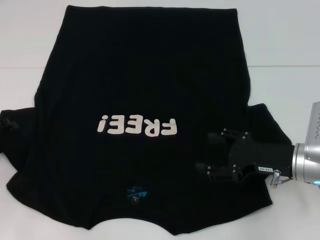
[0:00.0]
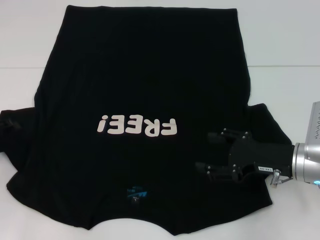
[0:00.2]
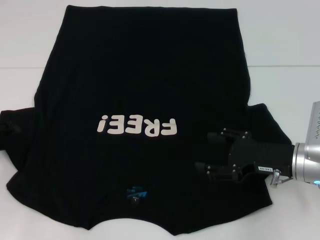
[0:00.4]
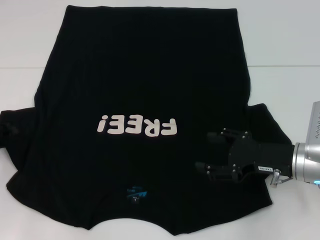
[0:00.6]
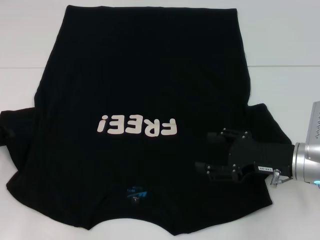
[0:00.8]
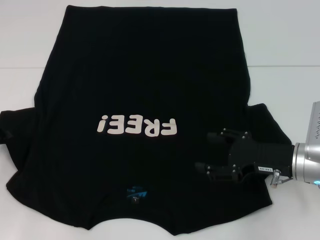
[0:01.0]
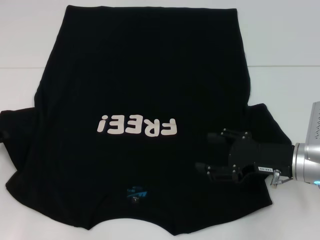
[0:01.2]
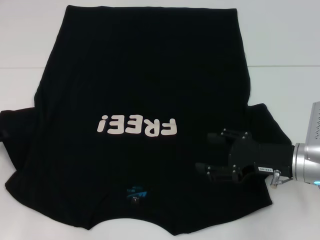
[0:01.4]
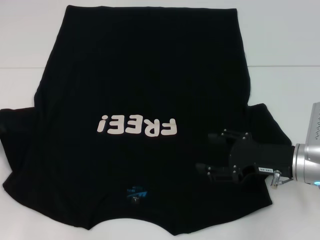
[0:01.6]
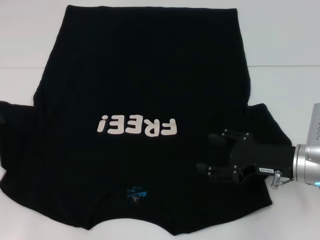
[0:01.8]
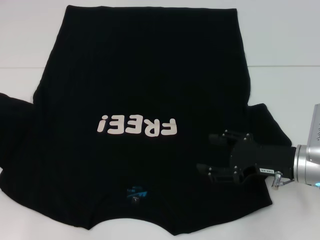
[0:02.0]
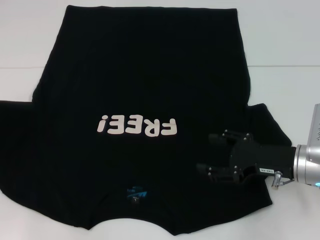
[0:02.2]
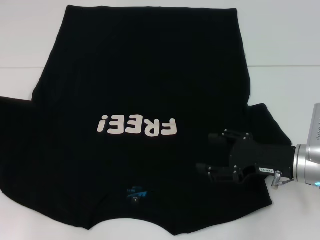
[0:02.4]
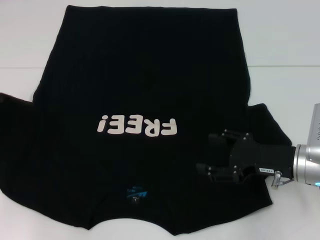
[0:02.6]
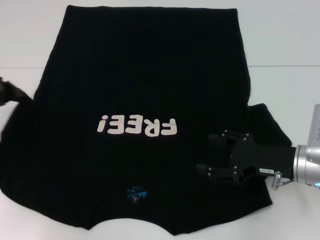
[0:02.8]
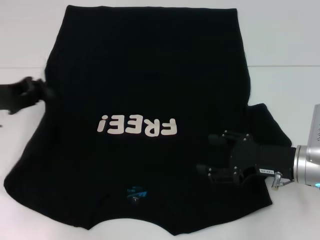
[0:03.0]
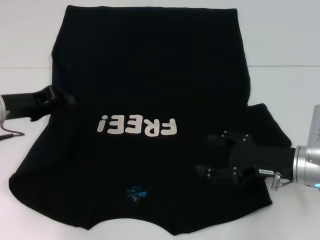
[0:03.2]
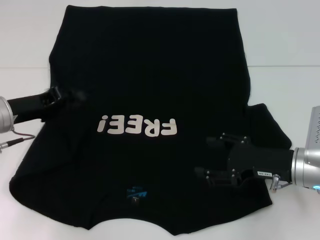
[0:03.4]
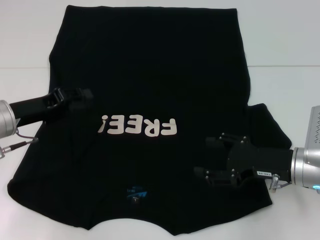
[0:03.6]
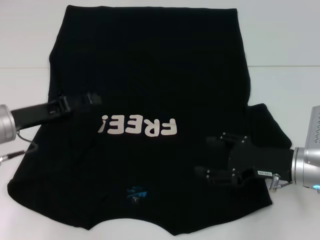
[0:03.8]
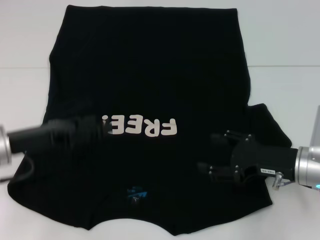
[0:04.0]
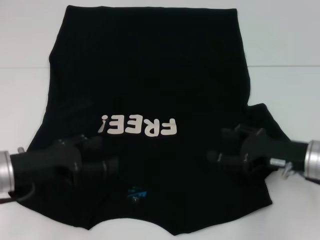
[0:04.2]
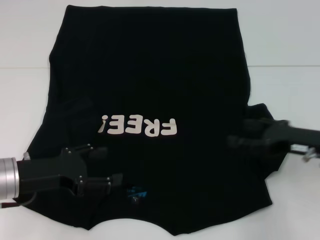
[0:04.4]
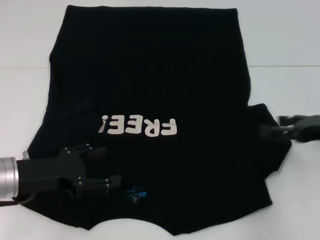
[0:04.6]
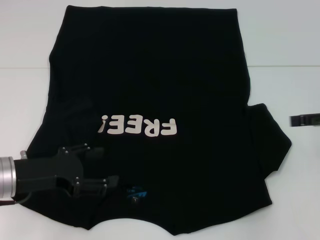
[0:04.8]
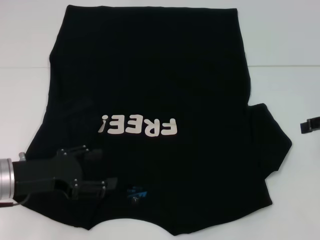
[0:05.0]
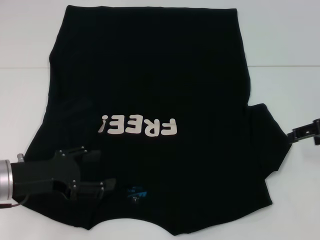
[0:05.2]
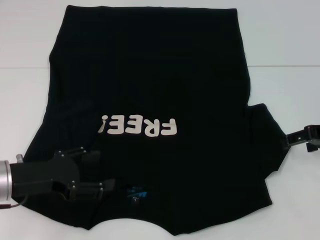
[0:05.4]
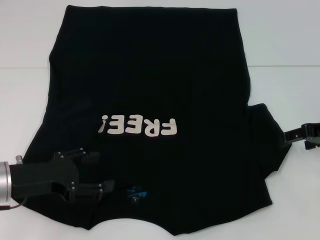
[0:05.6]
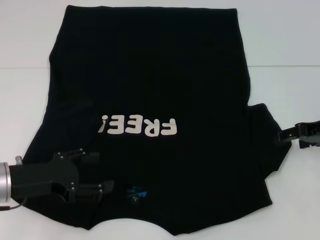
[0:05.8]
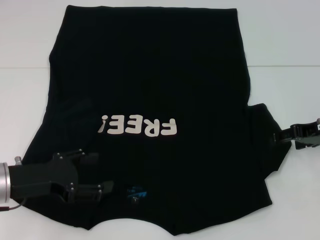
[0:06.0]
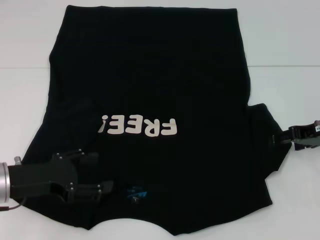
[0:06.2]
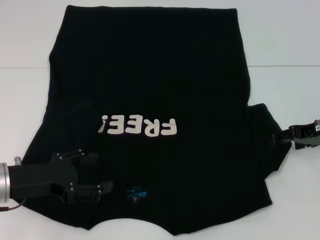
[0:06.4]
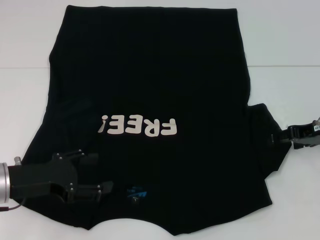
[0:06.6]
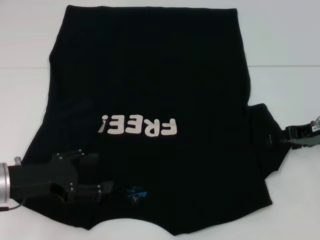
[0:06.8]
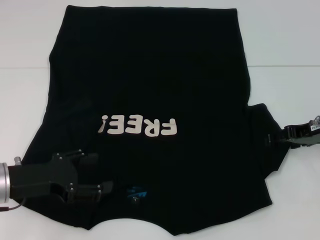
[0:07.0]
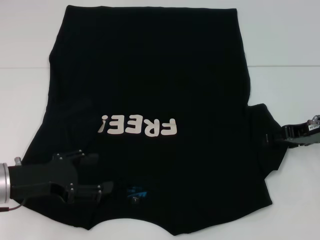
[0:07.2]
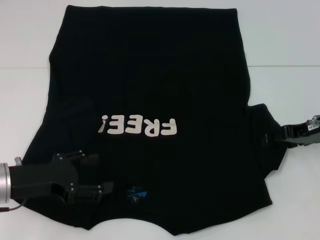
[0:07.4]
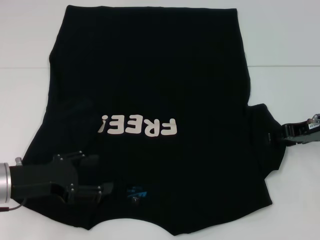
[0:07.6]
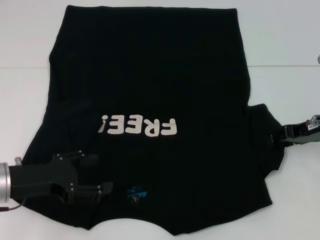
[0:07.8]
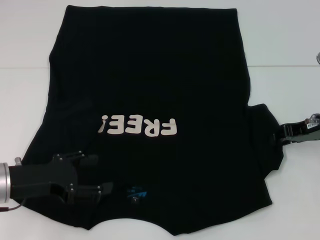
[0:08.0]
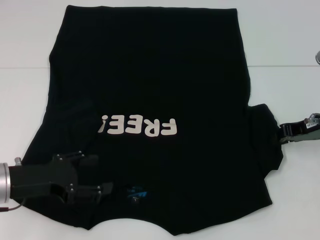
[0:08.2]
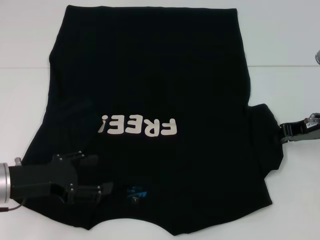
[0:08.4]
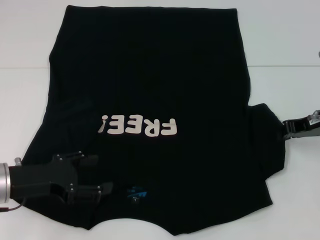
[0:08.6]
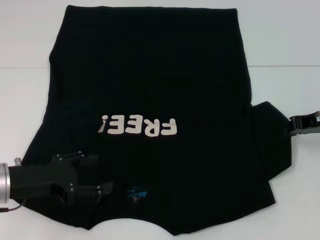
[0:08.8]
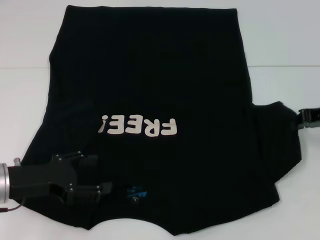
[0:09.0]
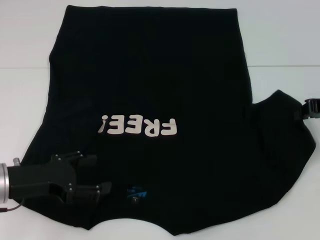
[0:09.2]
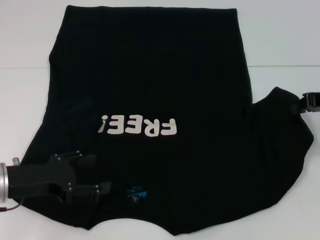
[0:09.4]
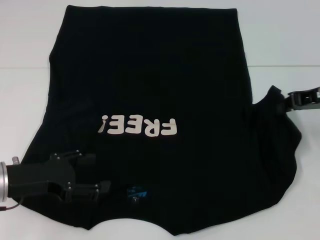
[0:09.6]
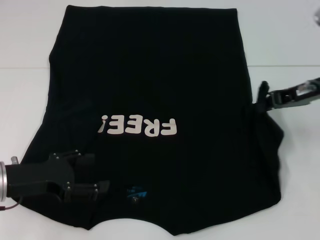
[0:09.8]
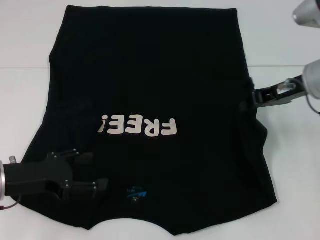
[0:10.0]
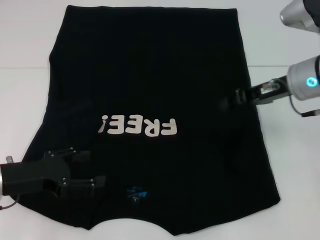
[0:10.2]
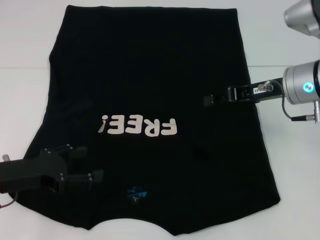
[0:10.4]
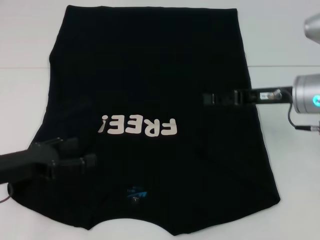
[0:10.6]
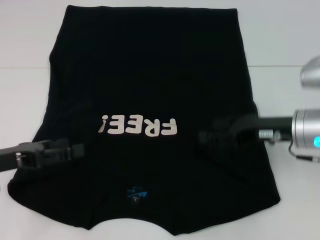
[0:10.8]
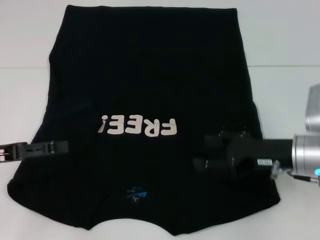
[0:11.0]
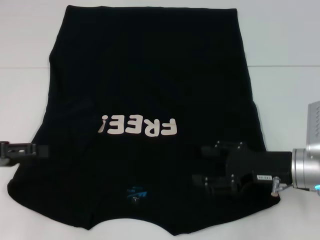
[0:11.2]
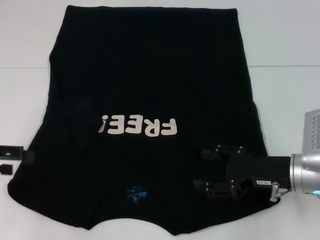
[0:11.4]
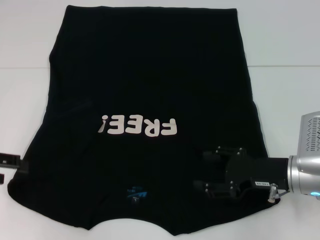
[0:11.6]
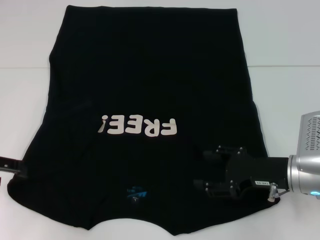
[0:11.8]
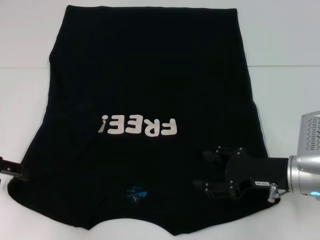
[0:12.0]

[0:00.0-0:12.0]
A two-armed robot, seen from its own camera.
Step, 0:00.0 to 0:03.8: Fold the bottom left sleeve with your left hand.
Step, 0:04.0 to 0:10.6: Fold the bottom right sleeve with your right hand.
0:00.0 to 0:01.6: The left gripper closes.
0:01.6 to 0:03.0: The left gripper travels to the right and upward by about 10 cm.
0:03.0 to 0:04.4: The left gripper is displaced backward, downward and to the right by some 10 cm, and opens.
0:04.4 to 0:06.0: The right gripper shifts about 5 cm forward.
0:06.0 to 0:07.6: There are only small adjustments of the grippers.
0:07.6 to 0:09.0: The right gripper closes up.
0:09.0 to 0:10.4: The right gripper heads to the left, covering roughly 10 cm.
0:10.4 to 0:12.0: The left gripper is displaced to the left and upward by roughly 10 cm, while the right gripper shifts approximately 15 cm downward and backward, and opens up.

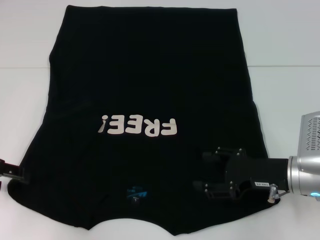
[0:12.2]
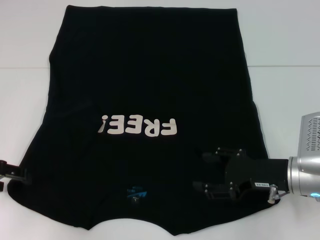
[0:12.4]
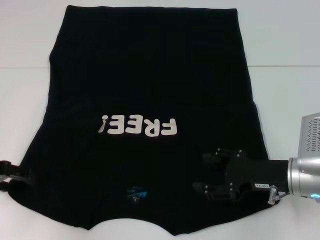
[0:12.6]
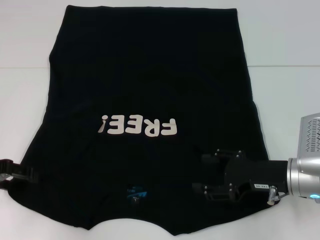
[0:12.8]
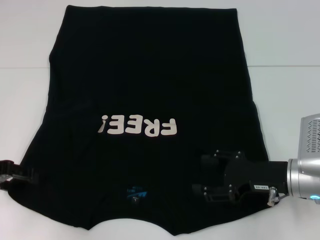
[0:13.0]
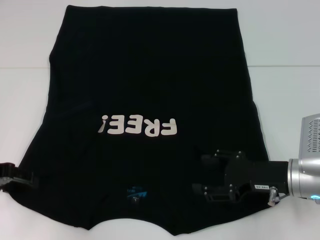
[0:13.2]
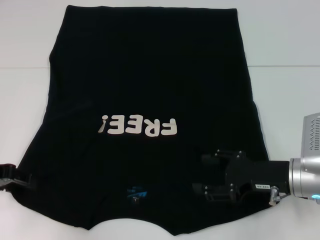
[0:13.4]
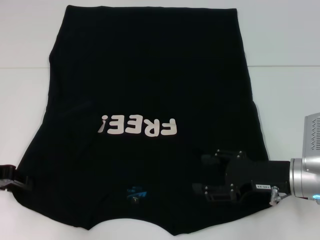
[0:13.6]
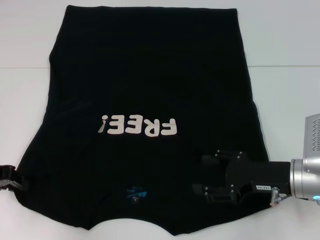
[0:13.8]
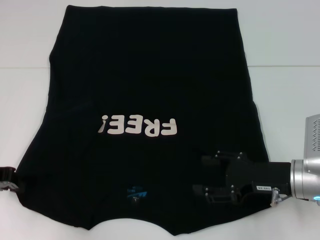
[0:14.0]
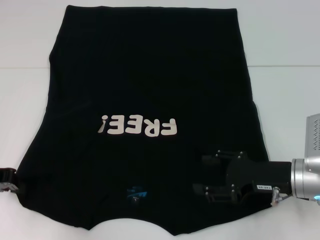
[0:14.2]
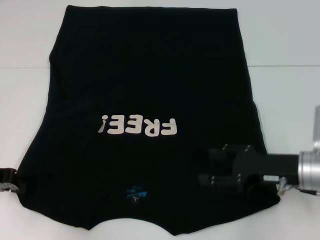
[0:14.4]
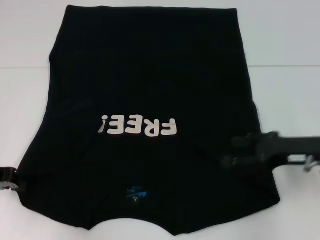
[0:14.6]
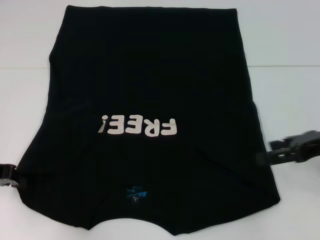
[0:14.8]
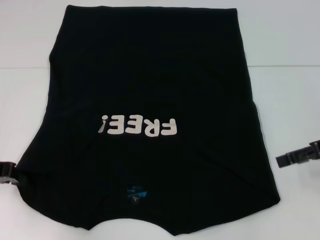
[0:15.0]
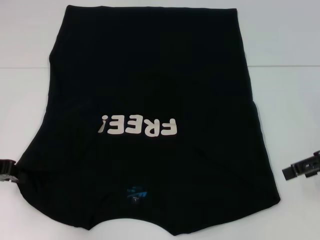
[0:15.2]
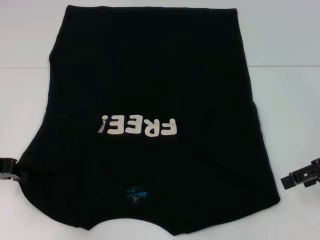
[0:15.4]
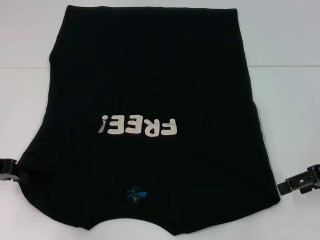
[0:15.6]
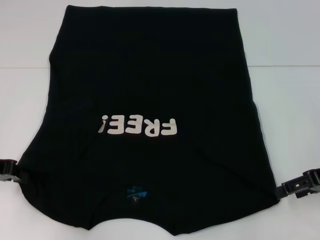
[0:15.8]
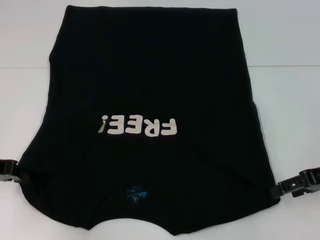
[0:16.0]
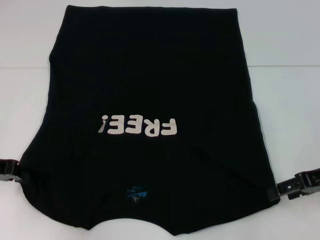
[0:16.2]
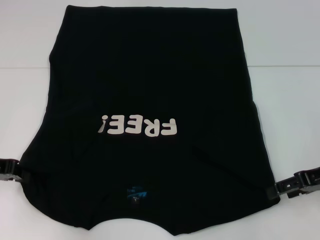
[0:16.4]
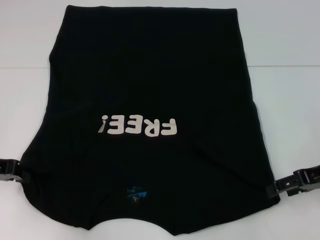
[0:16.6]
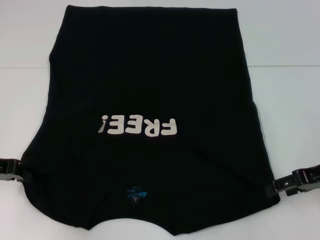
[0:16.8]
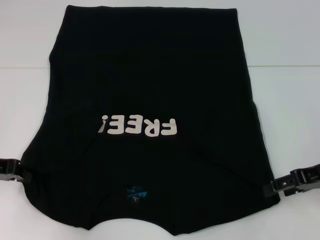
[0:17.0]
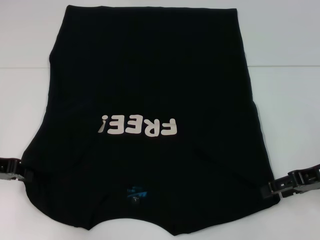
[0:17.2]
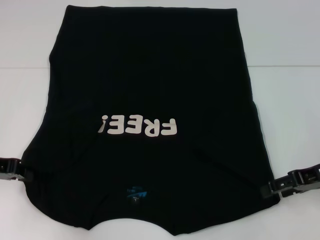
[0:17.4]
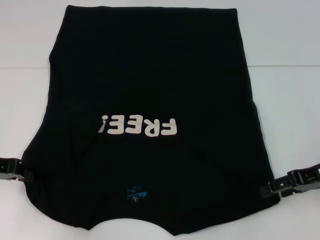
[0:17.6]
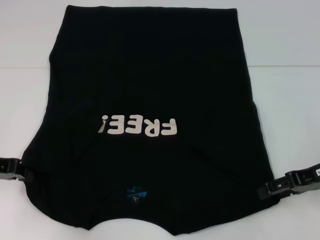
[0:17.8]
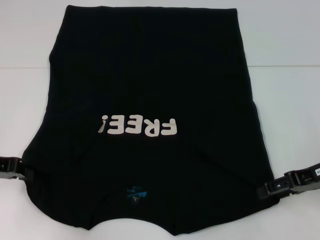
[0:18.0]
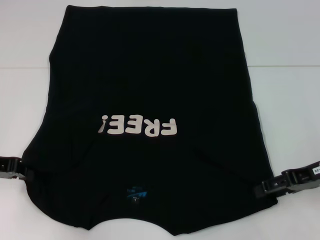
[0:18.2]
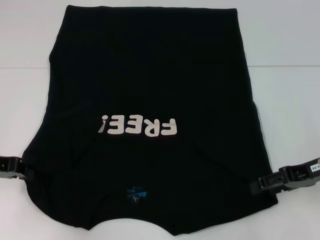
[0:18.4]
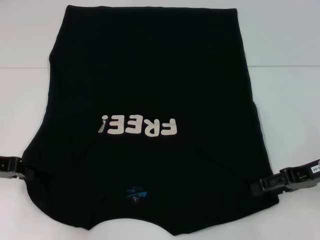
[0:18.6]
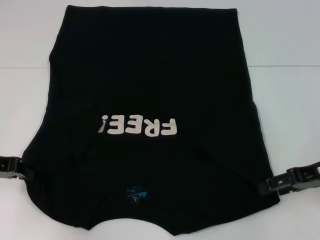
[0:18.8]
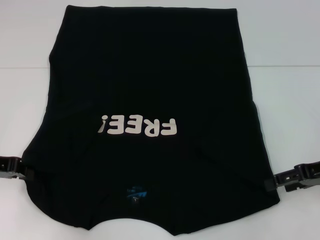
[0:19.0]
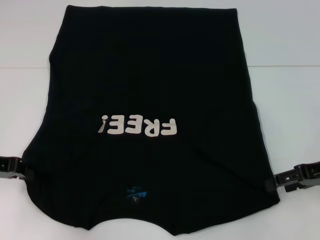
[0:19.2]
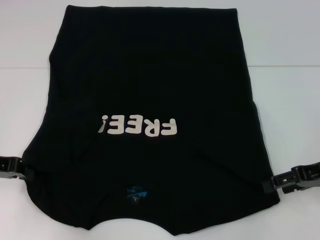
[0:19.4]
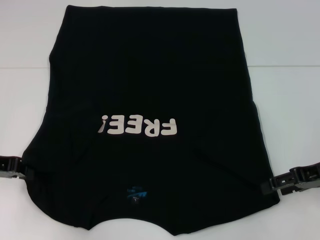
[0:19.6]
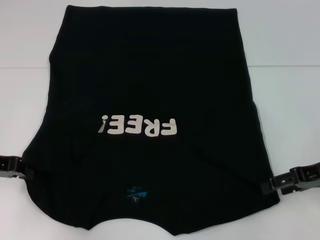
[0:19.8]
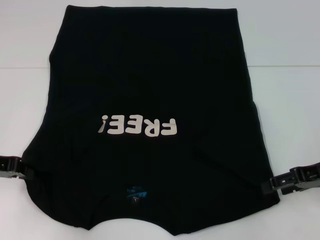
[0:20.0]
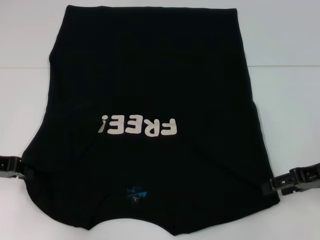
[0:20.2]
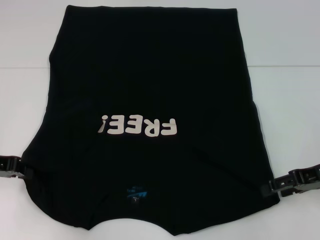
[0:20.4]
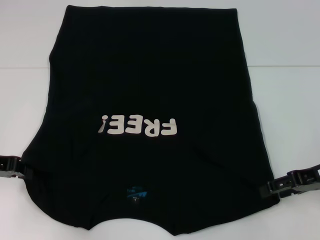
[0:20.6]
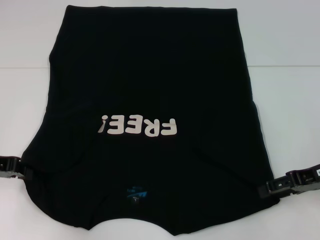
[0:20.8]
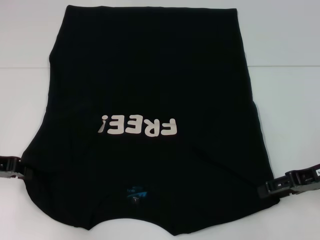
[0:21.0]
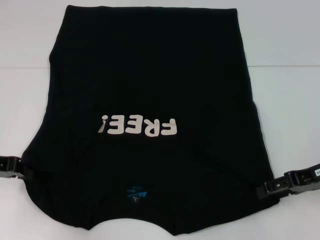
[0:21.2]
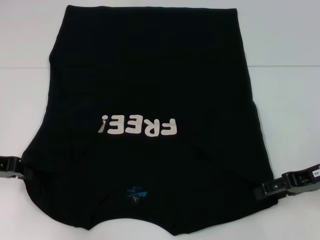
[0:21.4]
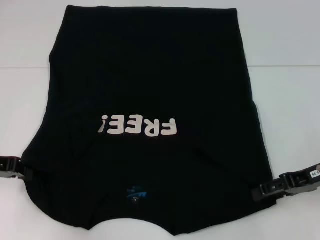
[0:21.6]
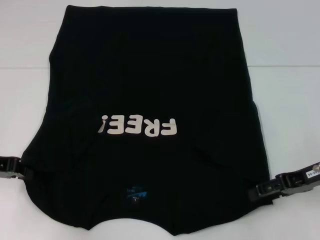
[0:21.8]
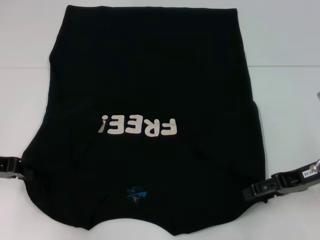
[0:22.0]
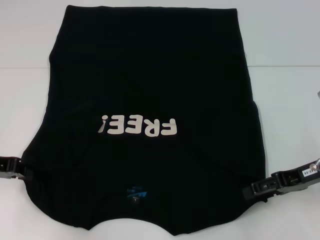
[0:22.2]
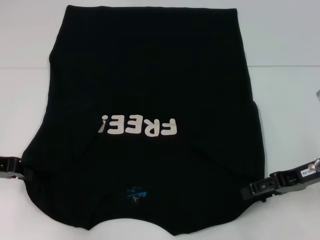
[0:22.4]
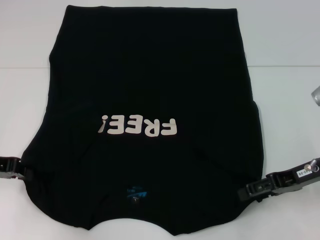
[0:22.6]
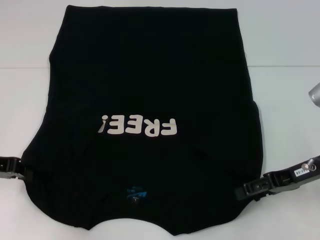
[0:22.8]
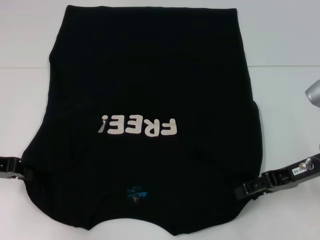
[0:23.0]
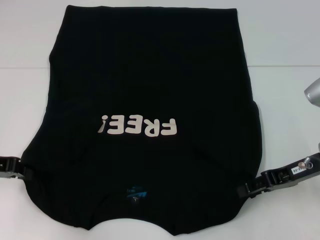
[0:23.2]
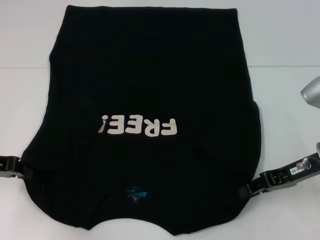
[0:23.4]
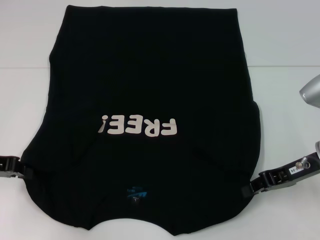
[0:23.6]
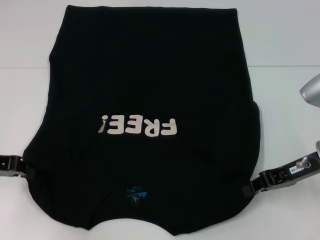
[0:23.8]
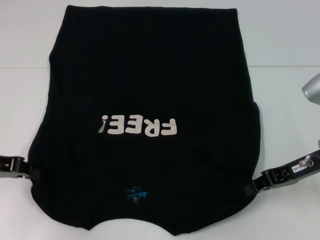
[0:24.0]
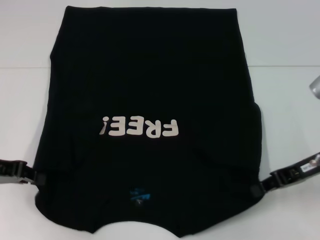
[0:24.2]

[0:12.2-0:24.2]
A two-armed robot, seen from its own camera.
Step, 0:12.2 to 0:14.2: Grab the bottom left corner with your left hand.
Step, 0:14.4 to 0:24.0: Grab the bottom right corner with your right hand.
0:12.2 to 0:13.8: The left gripper closes up.
0:13.8 to 0:15.2: The left gripper closes up. The right gripper travels upward and to the right by approximately 15 cm.
0:15.2 to 0:16.6: The right gripper is displaced downward by some 5 cm.
0:16.6 to 0:19.8: There are only small adjustments of the grippers.
0:19.8 to 0:21.2: Neither gripper changes place.
0:21.2 to 0:22.6: There are only small adjustments of the grippers.
0:22.6 to 0:24.2: The right gripper closes up.
